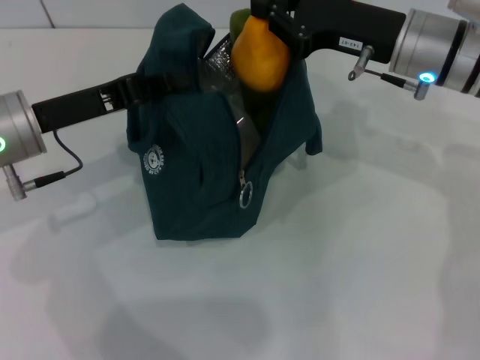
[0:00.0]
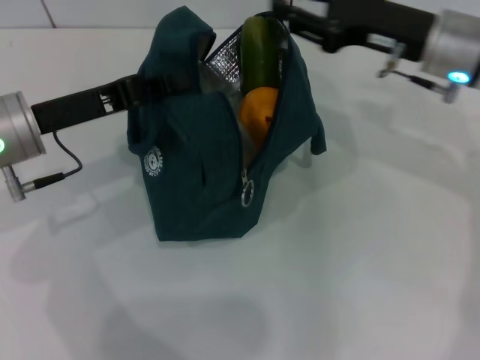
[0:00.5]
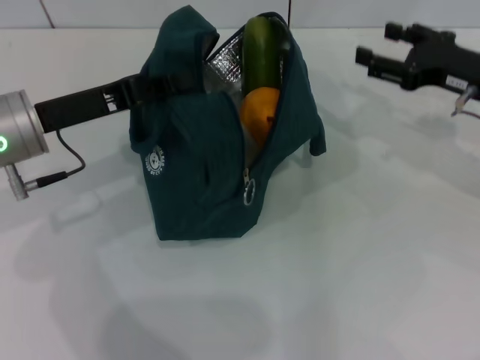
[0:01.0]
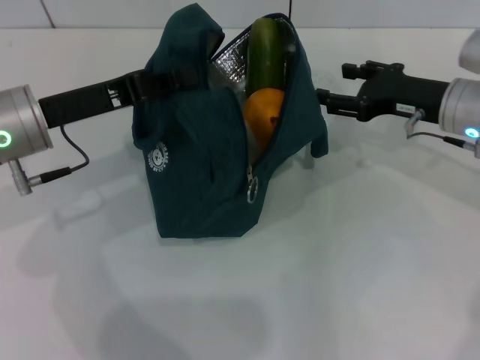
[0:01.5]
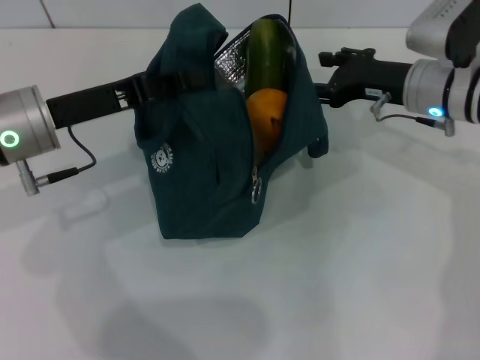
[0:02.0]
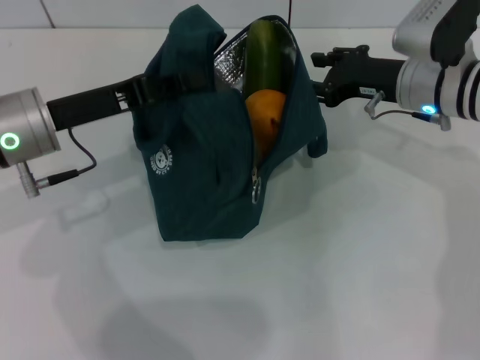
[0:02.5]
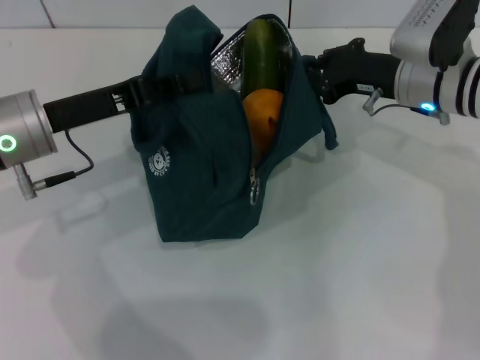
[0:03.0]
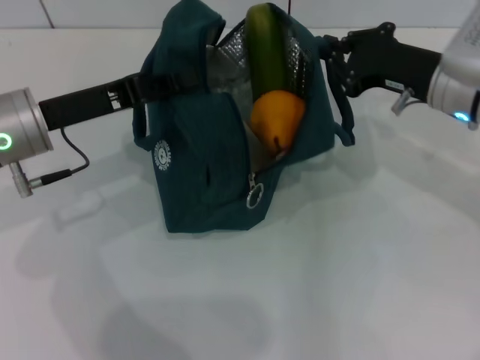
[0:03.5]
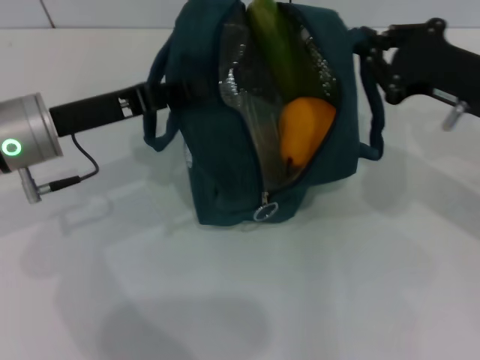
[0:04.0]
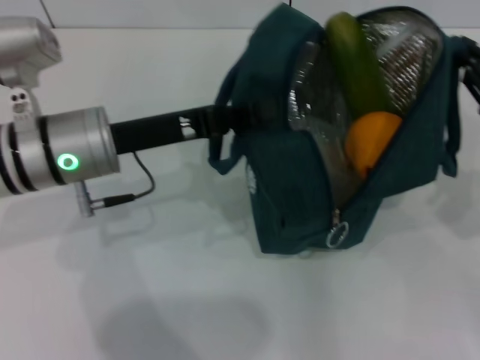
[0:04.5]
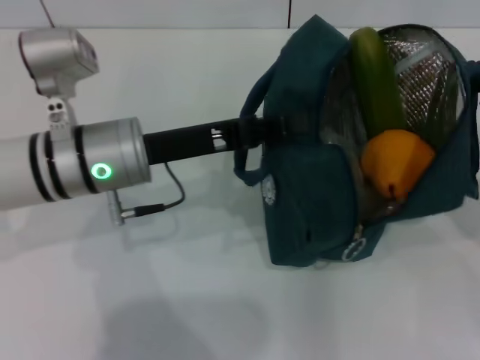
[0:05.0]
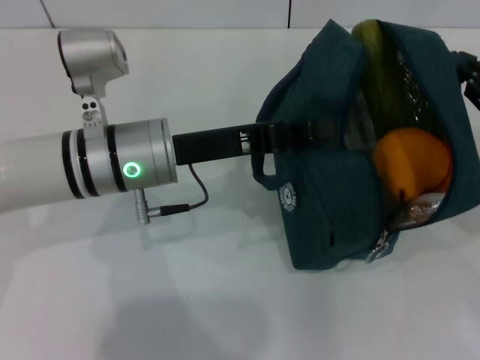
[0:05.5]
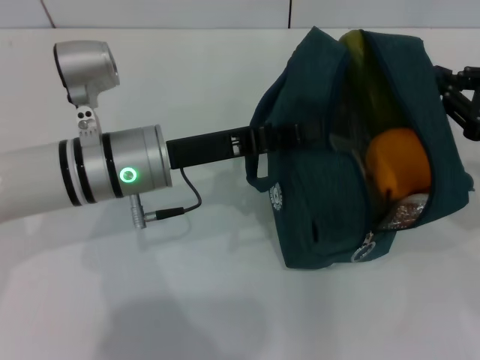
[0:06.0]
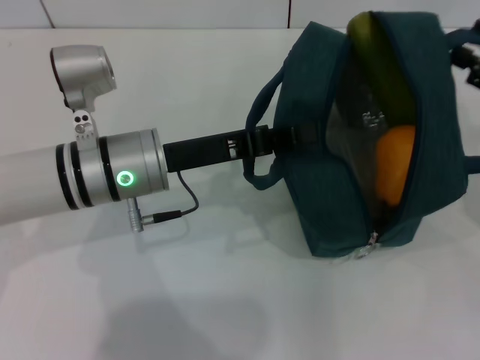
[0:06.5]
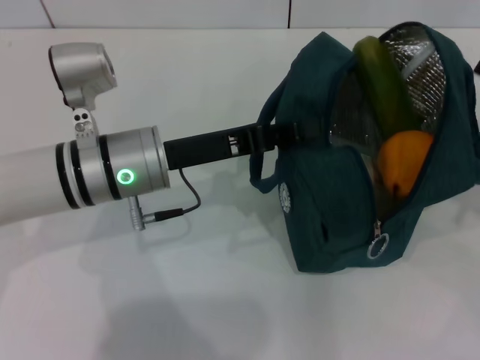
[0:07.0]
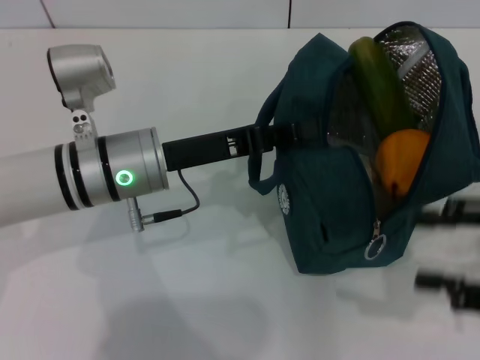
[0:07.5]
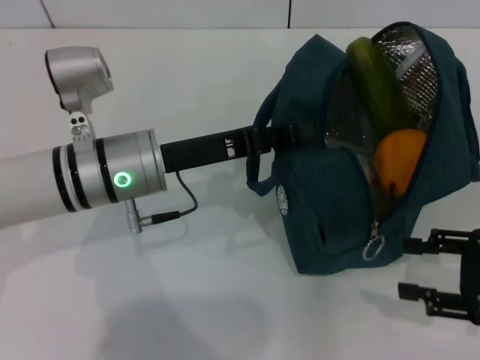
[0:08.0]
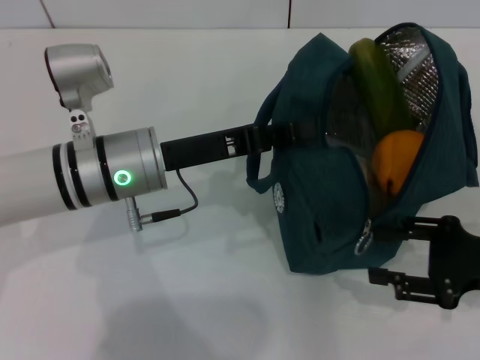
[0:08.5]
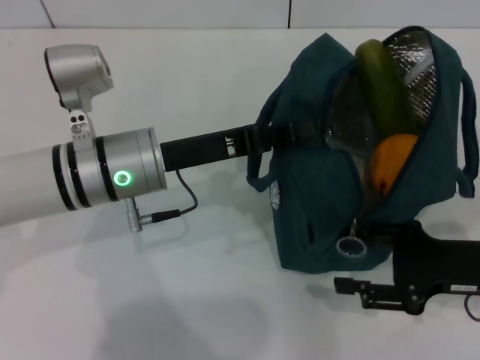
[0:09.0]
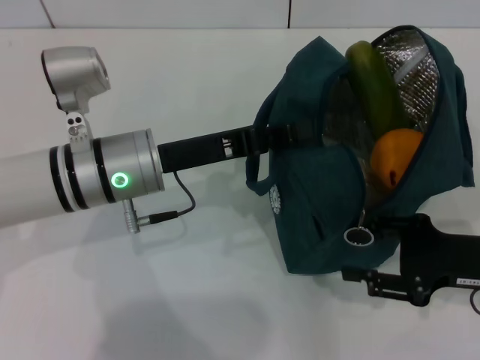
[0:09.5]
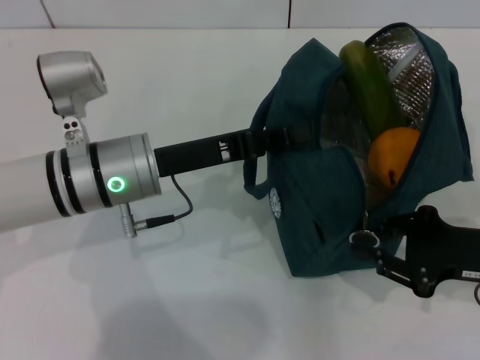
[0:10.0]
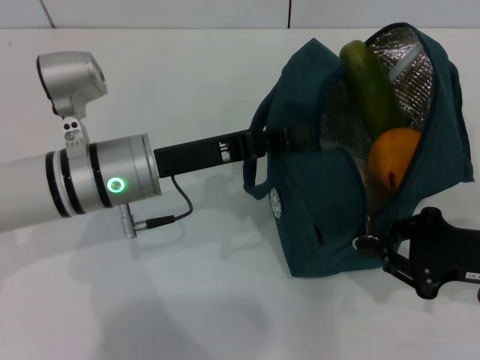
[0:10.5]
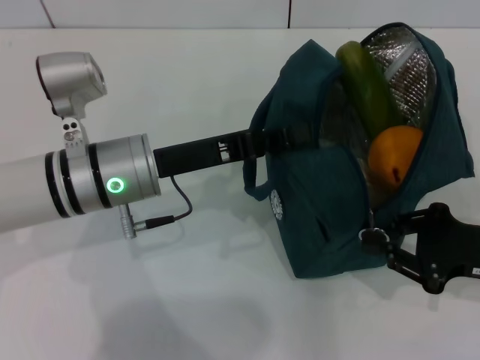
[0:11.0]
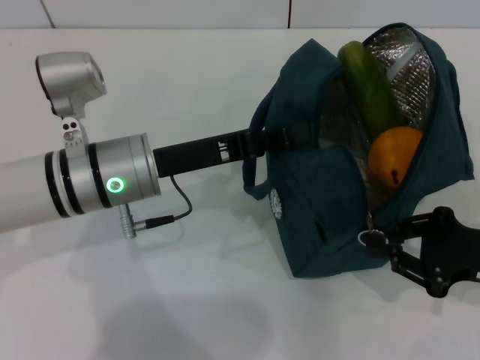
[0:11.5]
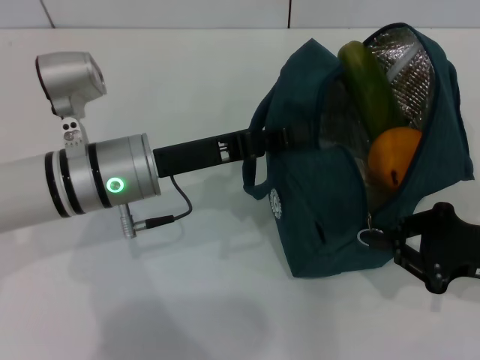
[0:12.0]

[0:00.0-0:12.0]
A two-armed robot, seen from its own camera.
Step, 0:01.0 to 0:06.5: Hold the lunch bag with your right hand.
0:00.0 to 0:02.0: The right gripper is displaced downward by approximately 5 cm, moves about 10 cm to the right and comes back, and opens.
0:02.0 to 0:04.0: The right gripper shifts some 10 cm backward, and closes up.
0:04.0 to 0:06.0: The two grippers go about 10 cm to the right.
0:06.0 to 0:08.0: The right gripper travels backward and downward by approximately 10 cm, and opens.
0:08.0 to 0:10.0: The right gripper changes place by approximately 5 cm, and closes up.
0:10.0 to 0:12.0: Both grippers stay about where they are.

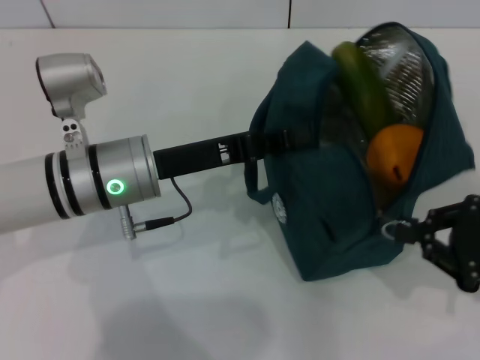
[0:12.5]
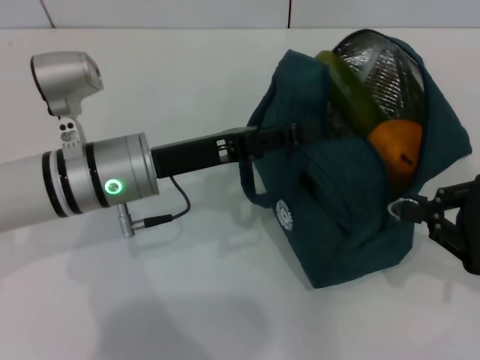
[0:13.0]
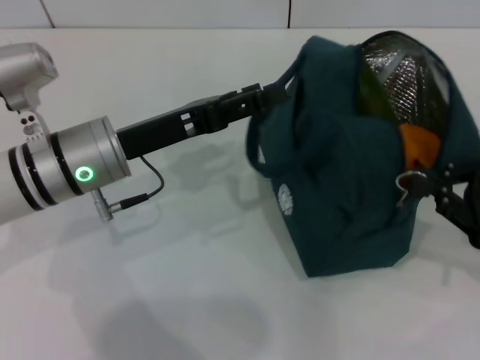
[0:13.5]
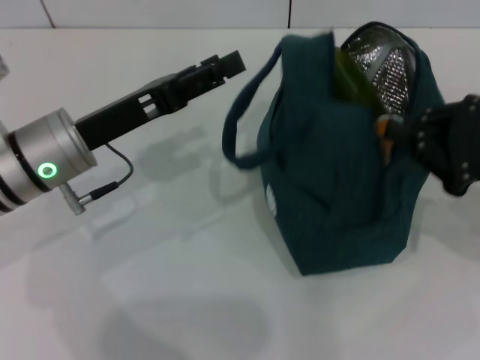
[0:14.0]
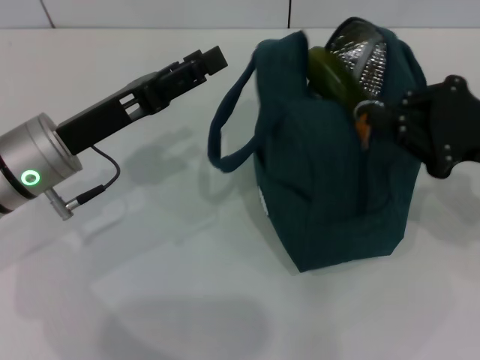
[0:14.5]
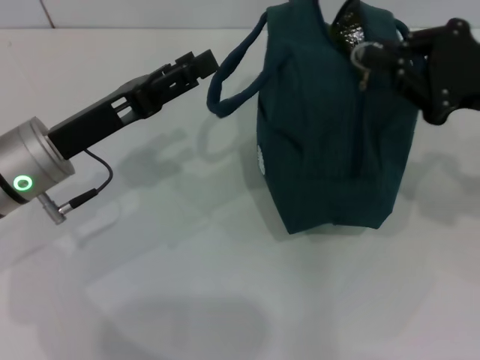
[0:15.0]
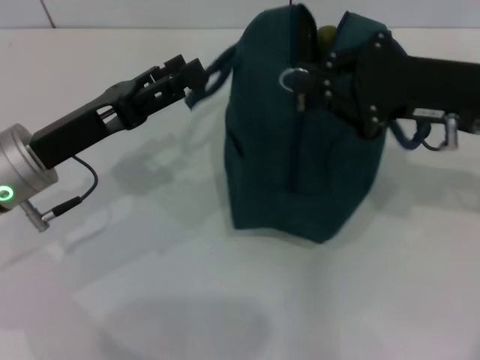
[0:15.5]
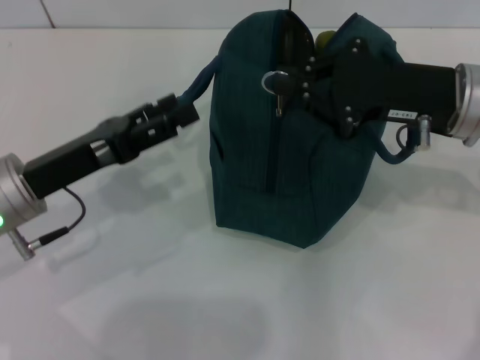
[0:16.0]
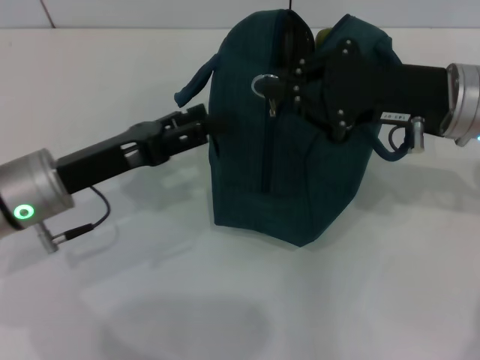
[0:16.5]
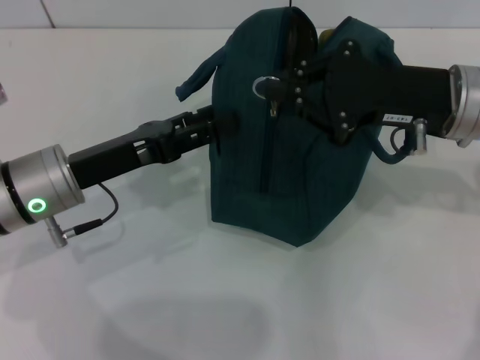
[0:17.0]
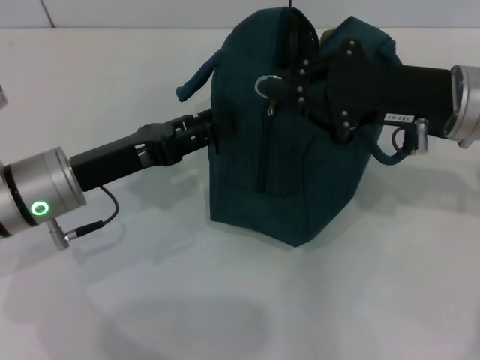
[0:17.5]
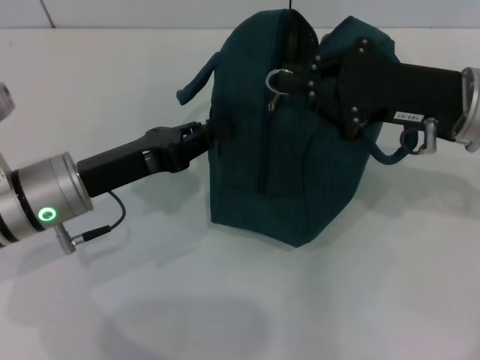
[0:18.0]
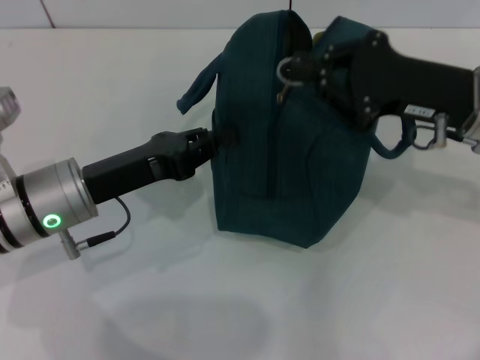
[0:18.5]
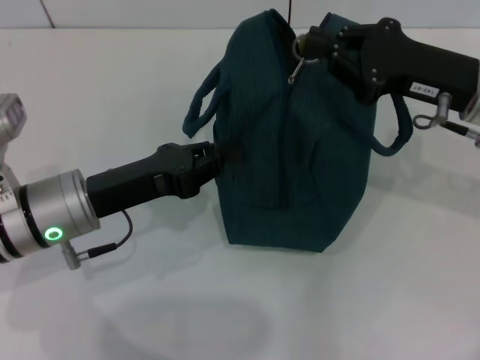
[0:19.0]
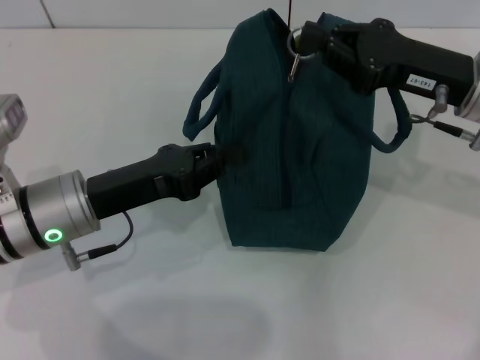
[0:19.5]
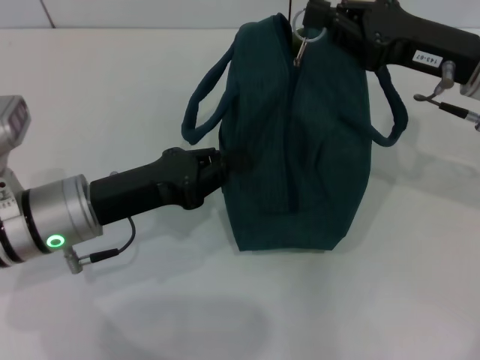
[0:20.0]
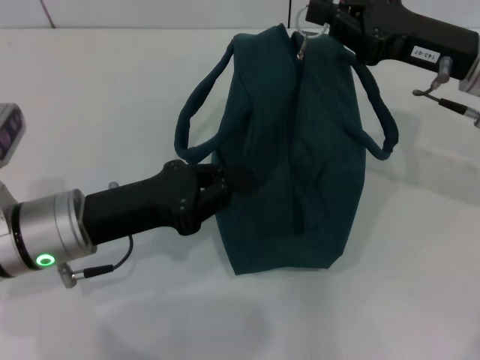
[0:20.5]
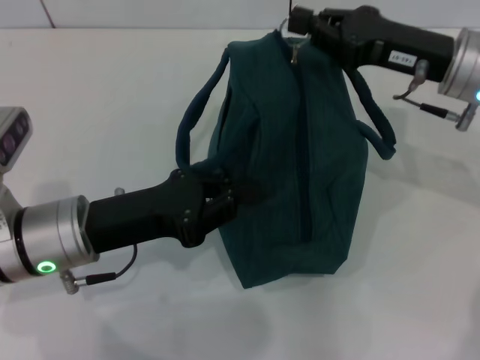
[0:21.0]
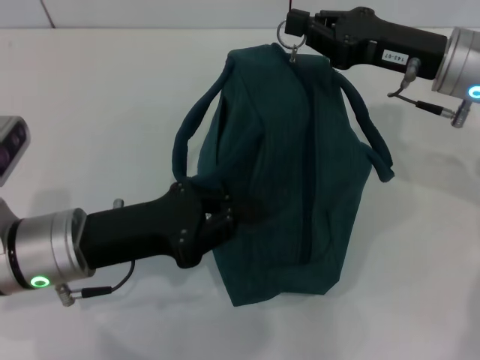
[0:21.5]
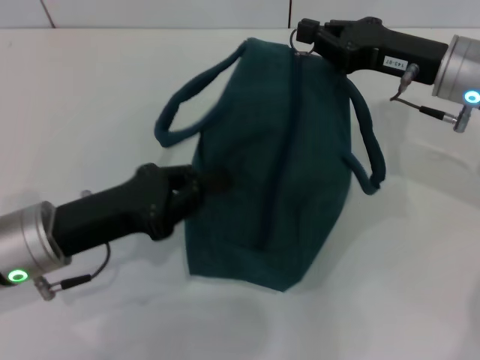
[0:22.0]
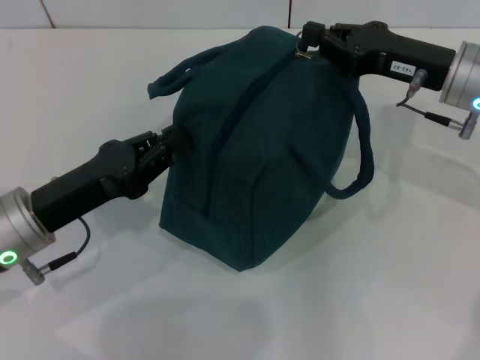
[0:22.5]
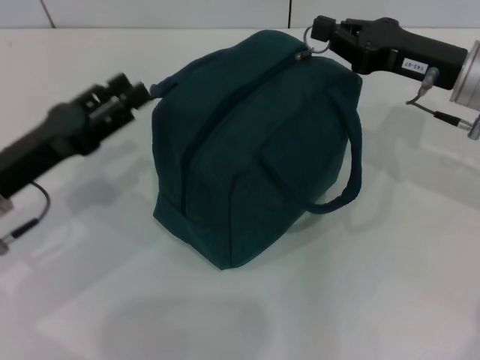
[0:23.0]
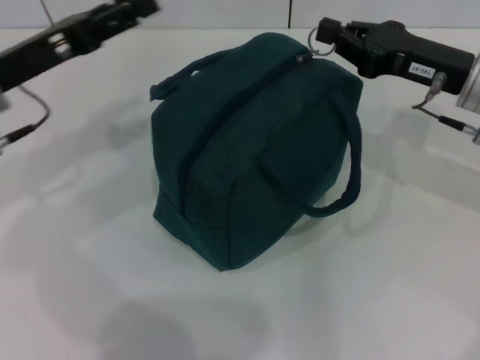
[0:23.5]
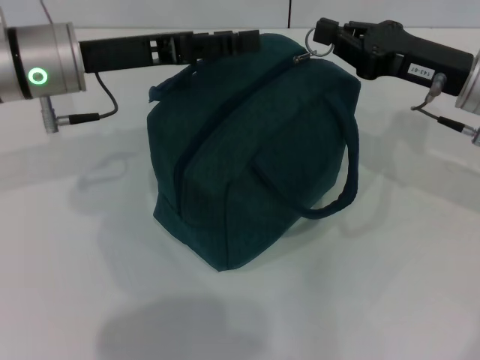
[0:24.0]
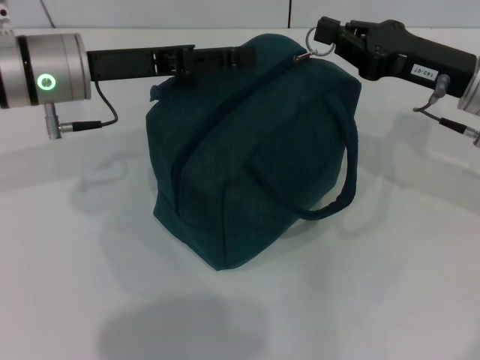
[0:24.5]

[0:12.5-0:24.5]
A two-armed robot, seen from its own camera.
0:12.5 to 0:14.5: The right gripper goes some 10 cm forward and upward; the left gripper goes roughly 5 cm to the left, and opens its fingers.
0:14.5 to 0:16.5: The right gripper travels to the left by some 10 cm.
0:16.5 to 0:18.5: The left gripper closes up.
0:22.5 to 0:24.5: The left gripper travels forward and upward by some 15 cm, and opens.

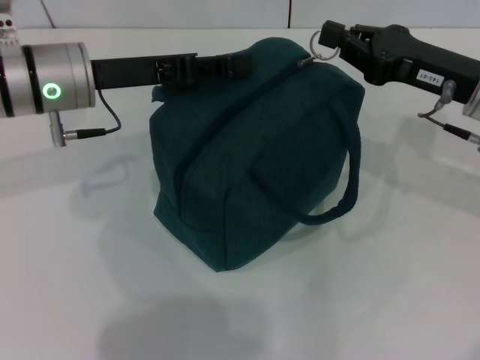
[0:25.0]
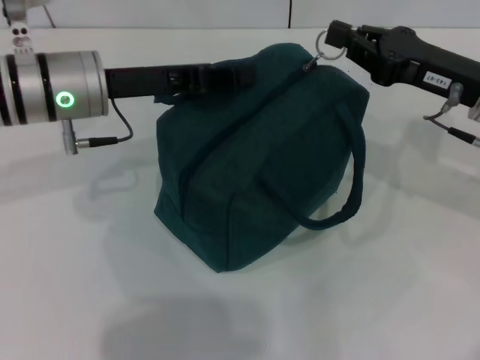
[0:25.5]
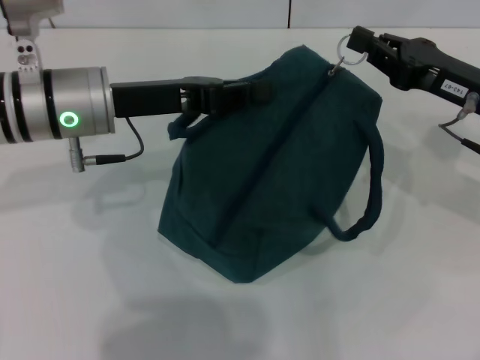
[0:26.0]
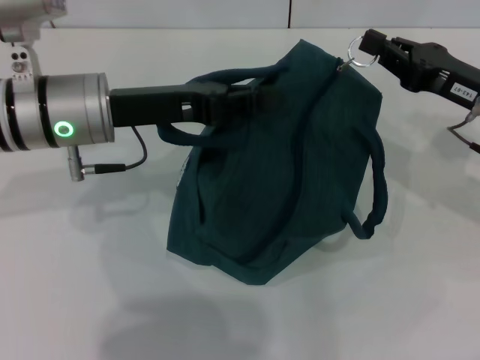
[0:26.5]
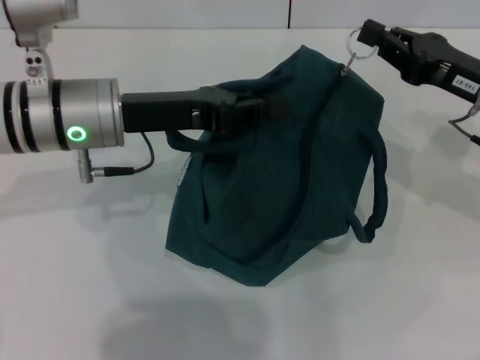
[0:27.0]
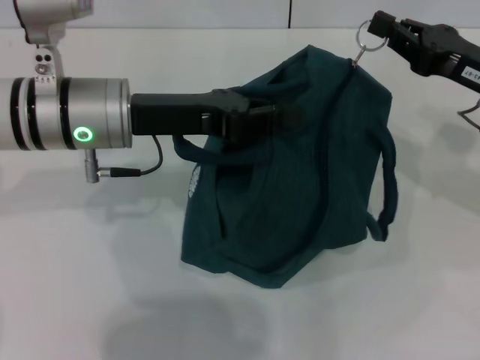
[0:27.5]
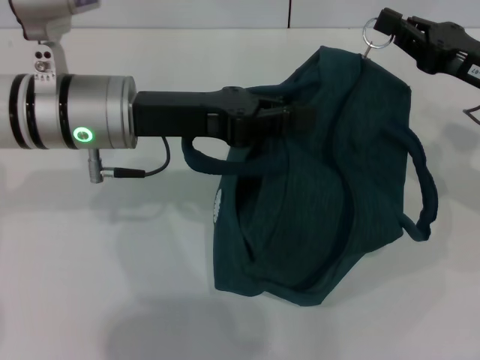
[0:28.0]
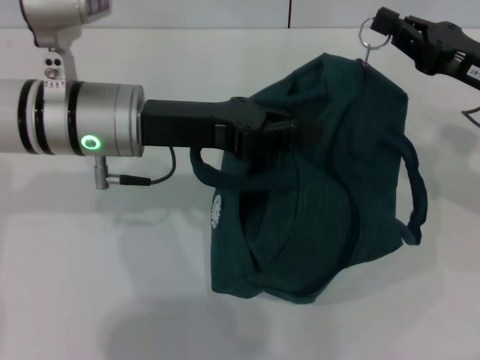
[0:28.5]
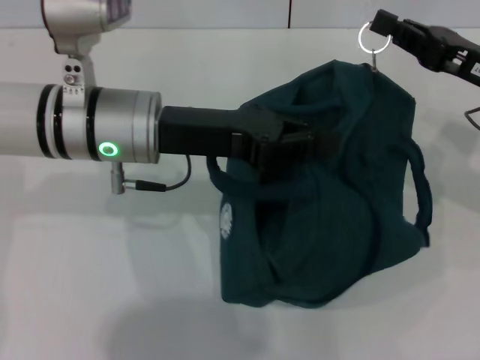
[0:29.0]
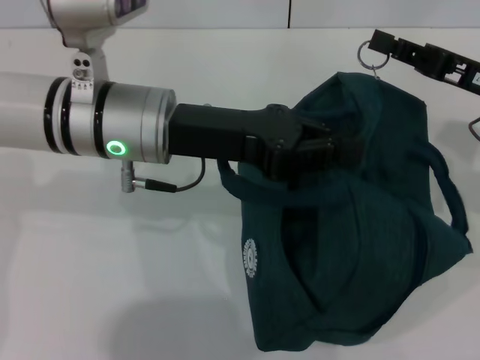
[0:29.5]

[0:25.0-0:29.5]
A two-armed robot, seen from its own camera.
0:25.0 to 0:27.0: The left gripper closes up.
0:27.0 to 0:29.5: The left gripper ends up approximately 5 cm from where it was.
